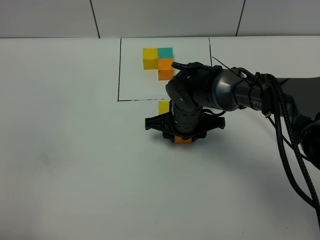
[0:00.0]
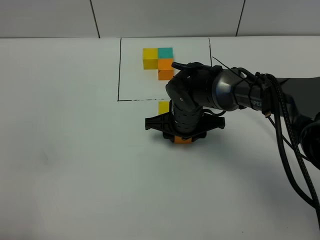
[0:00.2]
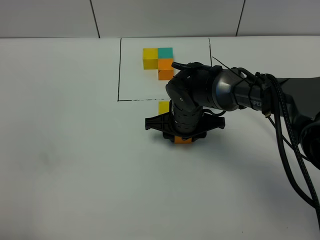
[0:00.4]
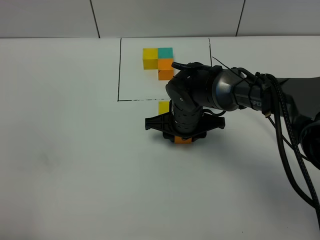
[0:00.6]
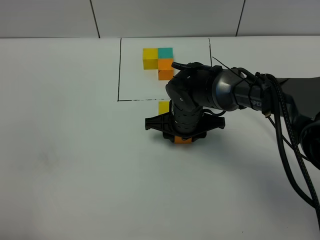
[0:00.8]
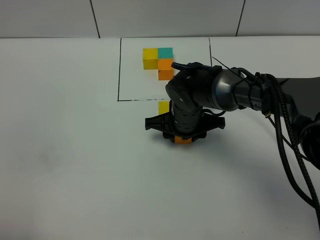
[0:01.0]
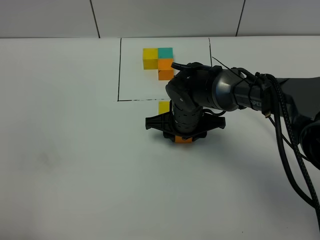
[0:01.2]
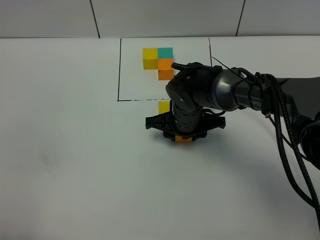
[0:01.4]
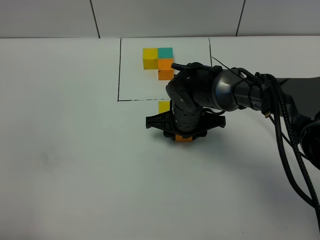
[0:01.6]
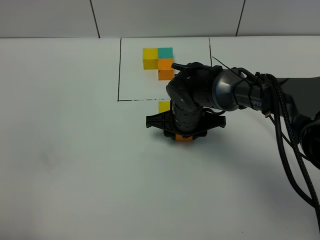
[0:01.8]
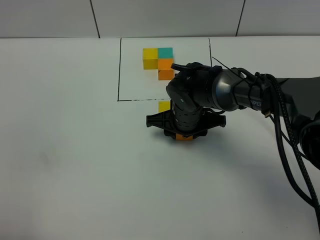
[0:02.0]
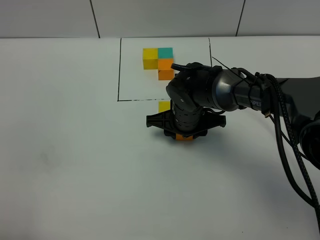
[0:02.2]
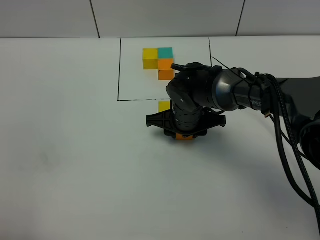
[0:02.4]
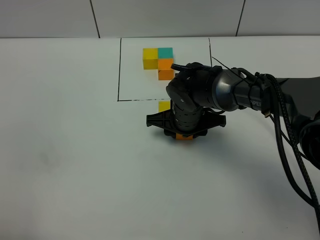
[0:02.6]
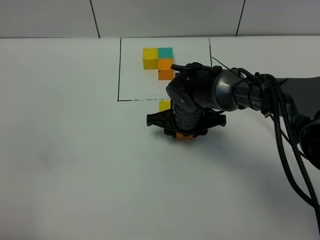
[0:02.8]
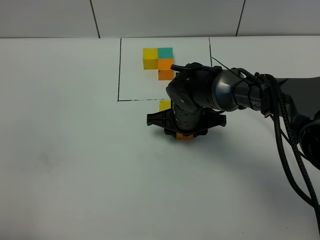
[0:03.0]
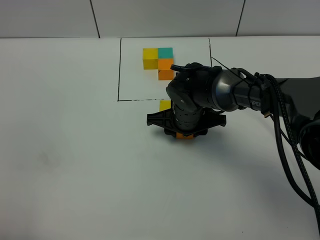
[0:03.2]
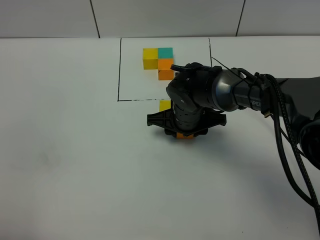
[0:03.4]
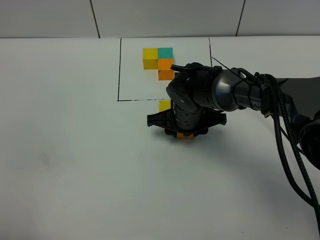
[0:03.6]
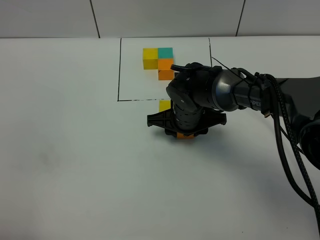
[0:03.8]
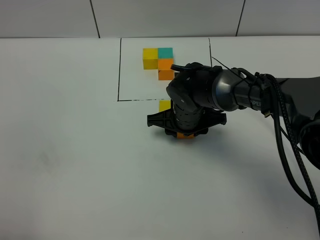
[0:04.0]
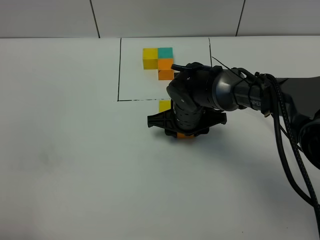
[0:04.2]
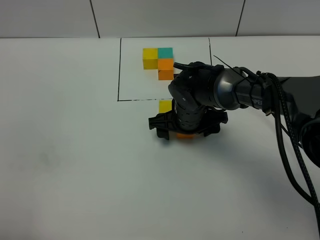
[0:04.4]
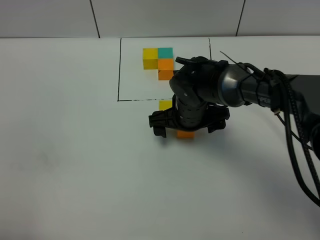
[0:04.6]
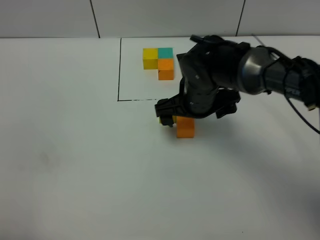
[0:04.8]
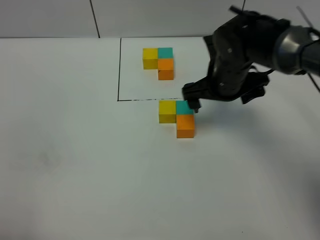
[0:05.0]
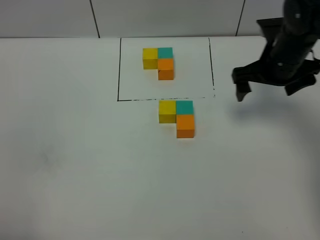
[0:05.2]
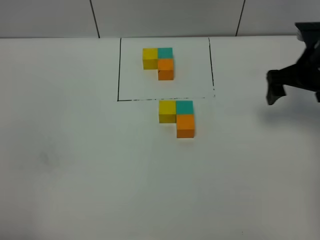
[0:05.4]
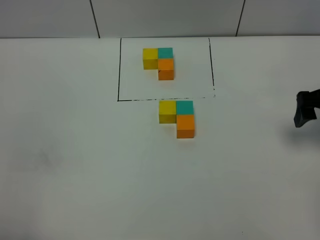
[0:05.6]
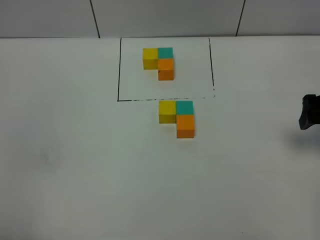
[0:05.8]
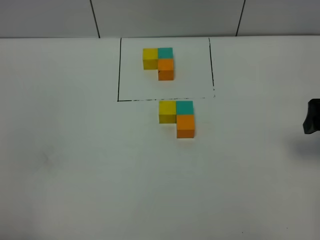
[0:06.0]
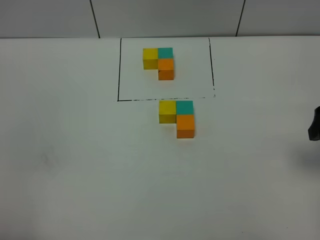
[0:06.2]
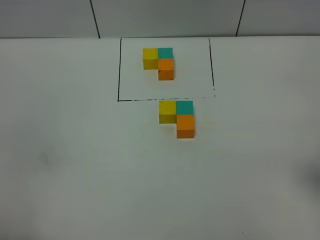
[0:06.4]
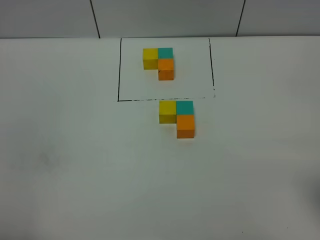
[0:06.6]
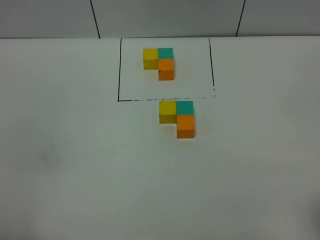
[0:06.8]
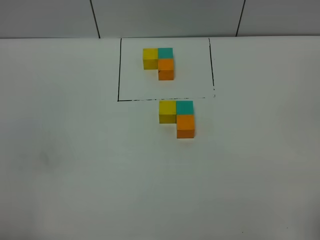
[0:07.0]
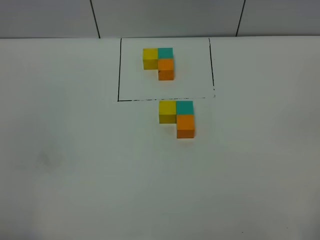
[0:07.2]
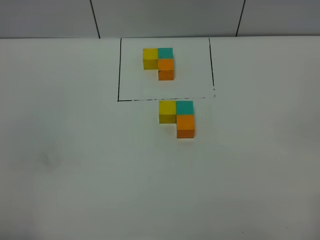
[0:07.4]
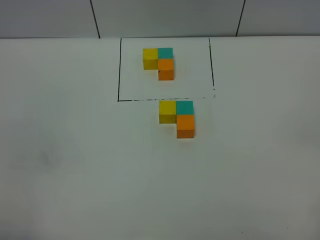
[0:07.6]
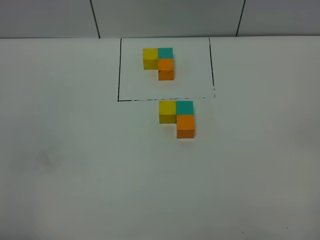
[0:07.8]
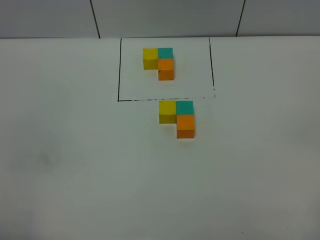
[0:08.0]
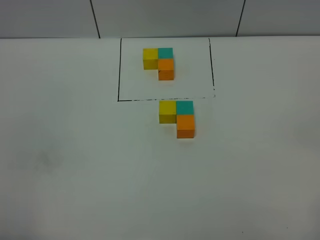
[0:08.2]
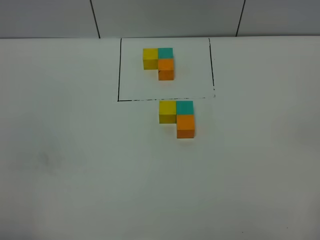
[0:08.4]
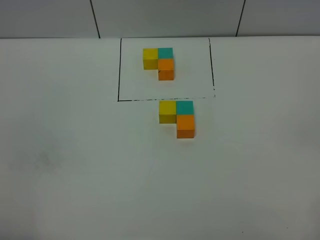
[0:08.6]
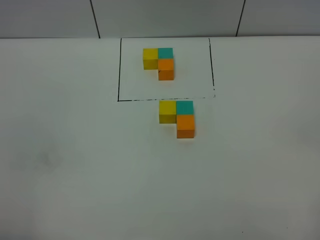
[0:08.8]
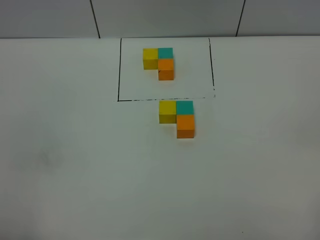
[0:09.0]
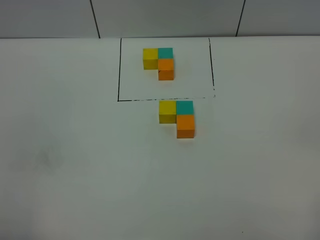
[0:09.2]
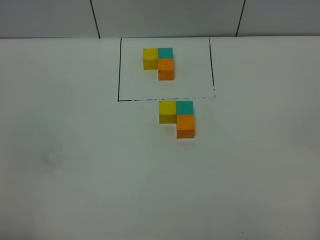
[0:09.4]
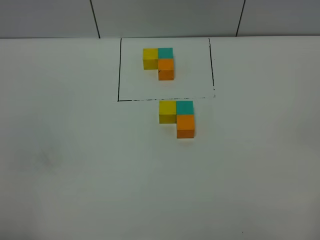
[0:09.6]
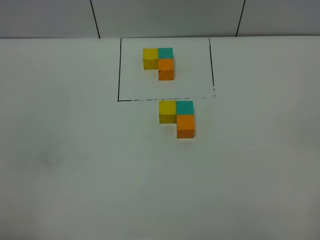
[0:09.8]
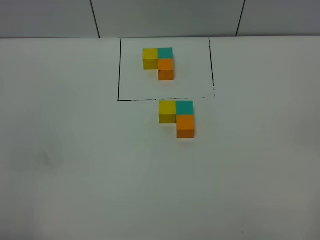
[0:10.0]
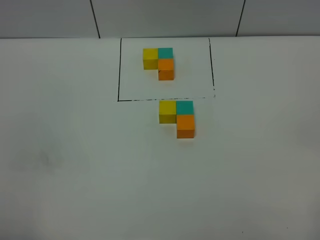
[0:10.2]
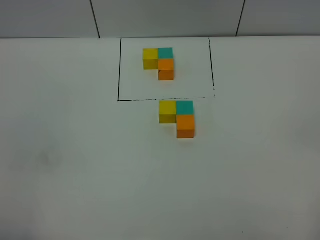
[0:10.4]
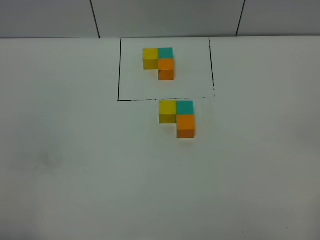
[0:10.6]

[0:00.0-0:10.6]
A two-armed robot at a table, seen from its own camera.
Task of the whole recording: According to the building block template in front, assemble the scattered blocks together.
0:00.0 to 0:03.0: Both grippers stay put.
0:03.0 to 0:04.6: The right gripper opens.
0:04.6 to 0:06.0: The right gripper is displaced to the right and upward by about 30 cm.
0:06.0 to 0:07.6: The right gripper shifts some 25 cm backward.
0:07.6 to 0:10.6: Neither gripper changes place.
